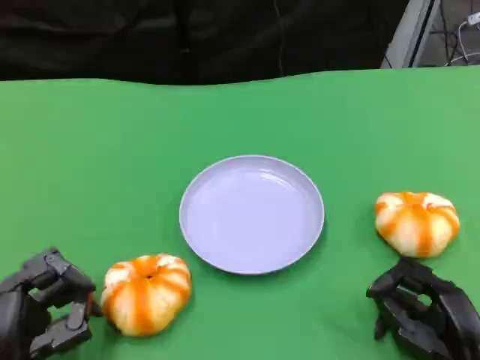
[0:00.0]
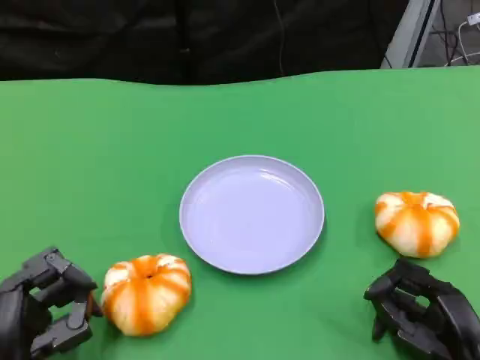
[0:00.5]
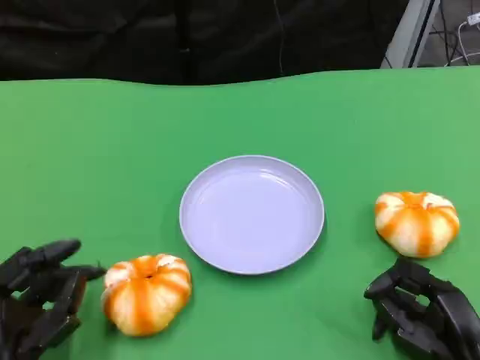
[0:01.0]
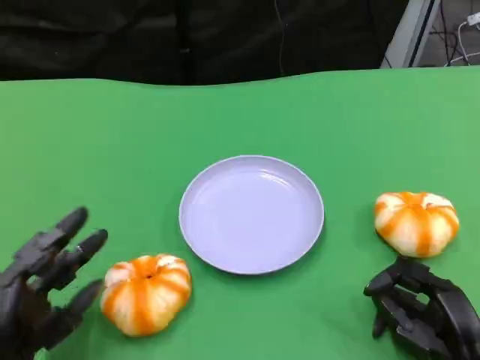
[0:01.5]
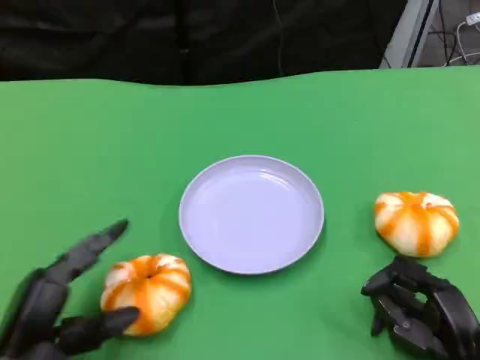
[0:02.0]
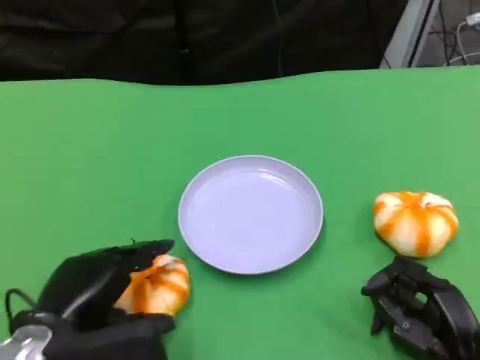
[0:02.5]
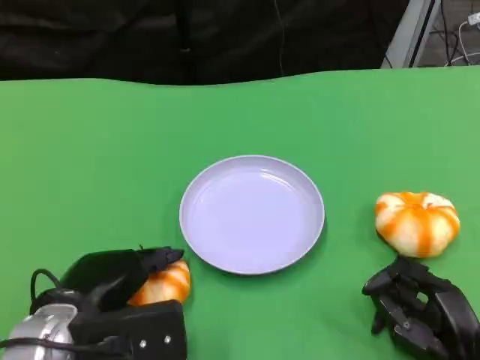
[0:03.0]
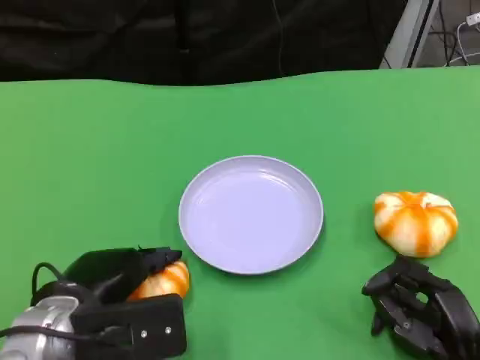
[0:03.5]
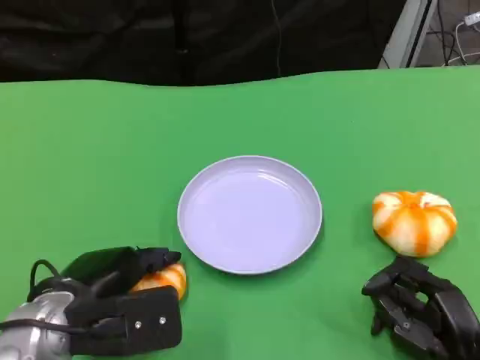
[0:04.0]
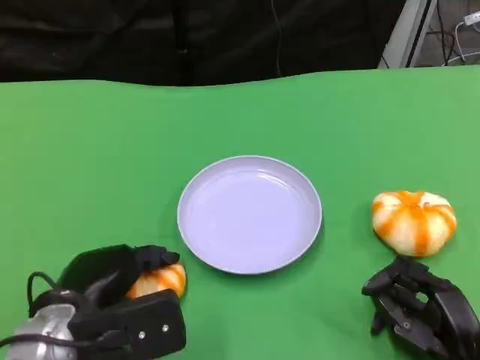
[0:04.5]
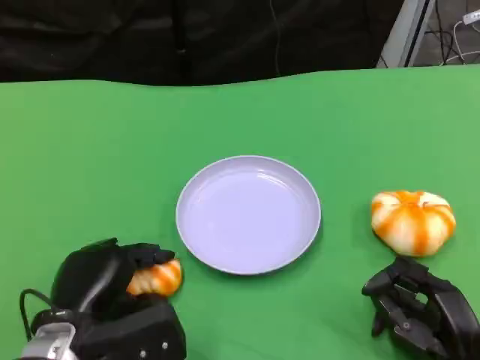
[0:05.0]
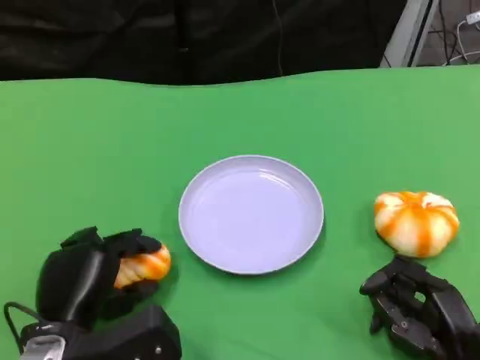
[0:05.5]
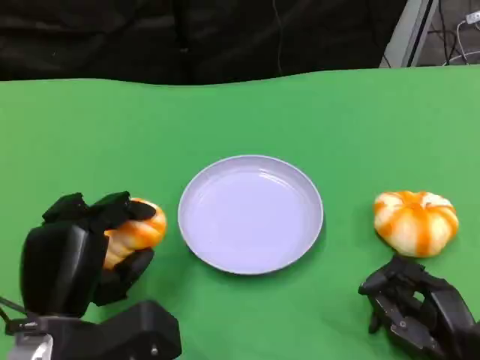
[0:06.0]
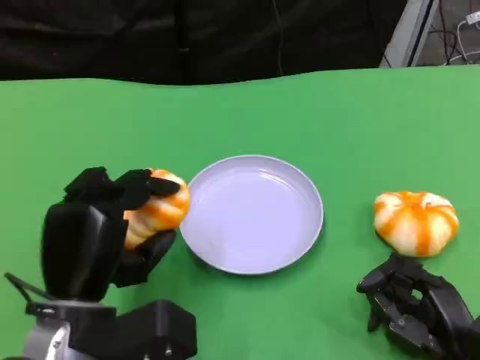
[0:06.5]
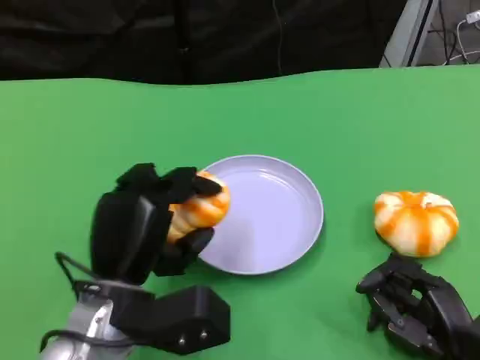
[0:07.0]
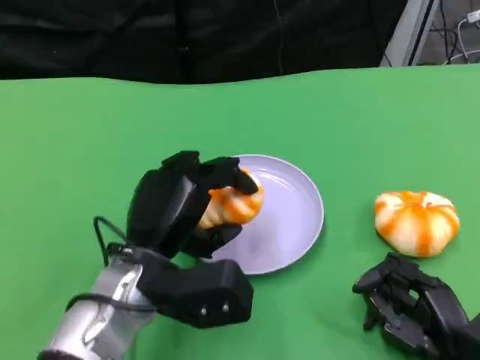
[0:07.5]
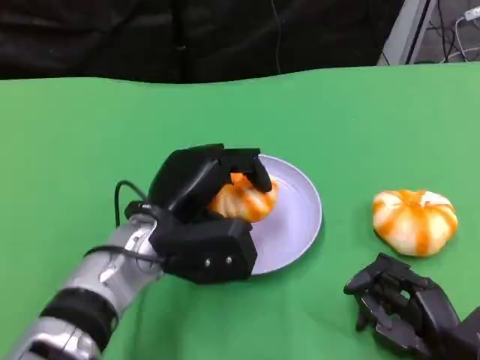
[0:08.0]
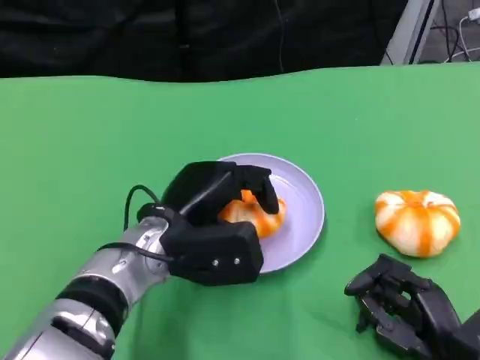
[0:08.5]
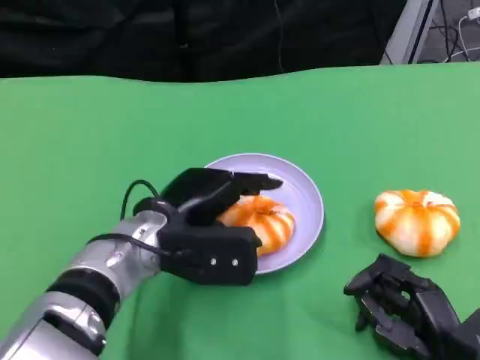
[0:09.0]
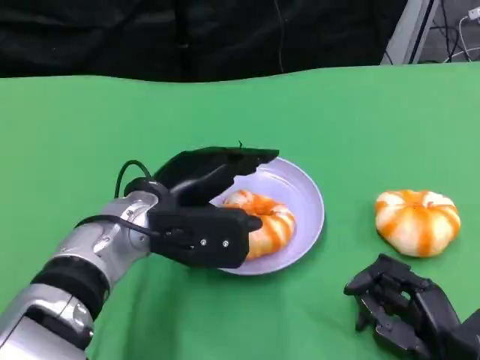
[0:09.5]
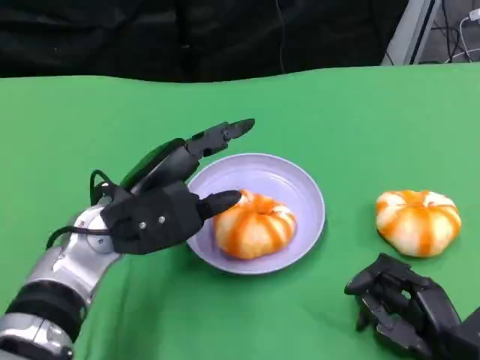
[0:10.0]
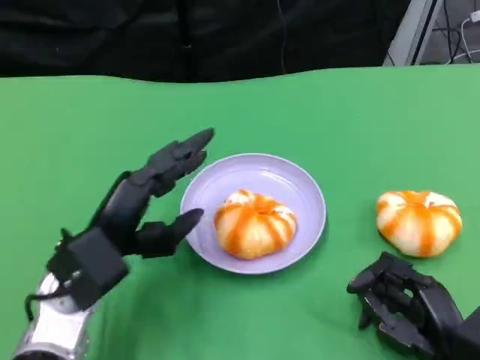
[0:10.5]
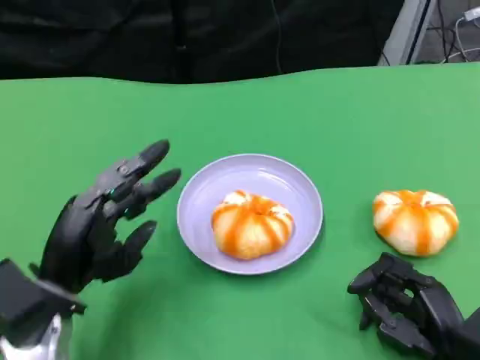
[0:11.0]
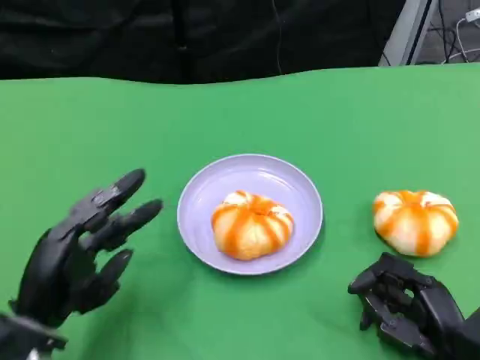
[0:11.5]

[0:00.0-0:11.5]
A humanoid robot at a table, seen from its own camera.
Task of the whole recording: Grasp the bread from the table and place it into the plate.
0:02.0 to 0:04.0: The left hand ends up some 5 cm from where it was.
0:06.0 to 0:07.5: The left hand travels to the right and forward by about 10 cm.
0:07.5 to 0:09.5: The left hand heads forward, covering roughly 5 cm.
0:09.5 to 0:11.5: The left hand is displaced to the left, backward and downward by some 15 cm.

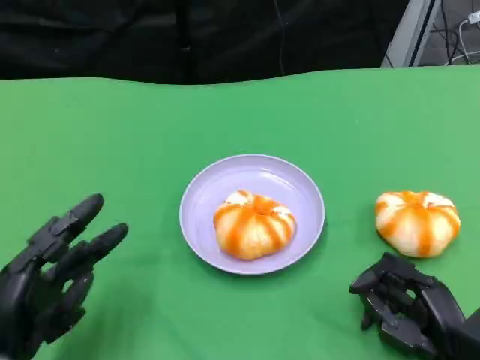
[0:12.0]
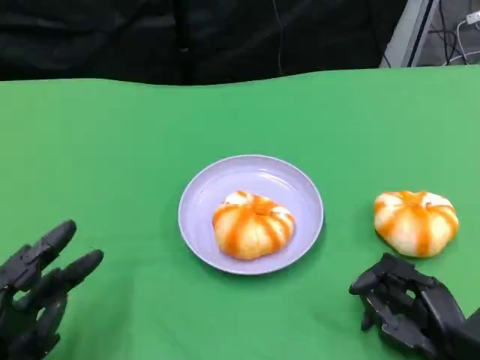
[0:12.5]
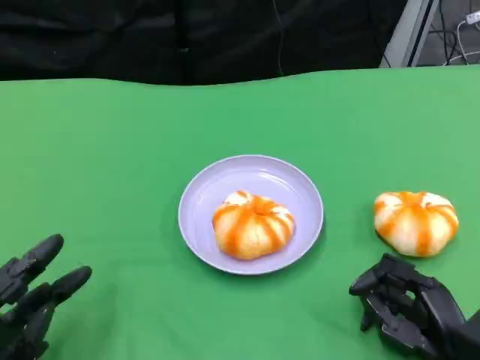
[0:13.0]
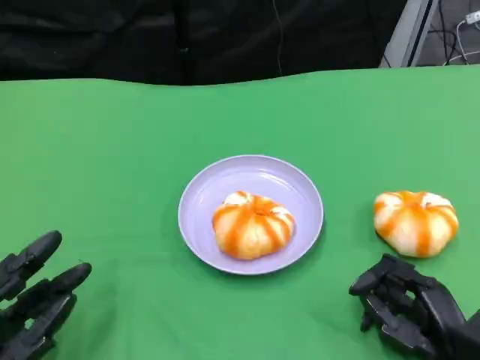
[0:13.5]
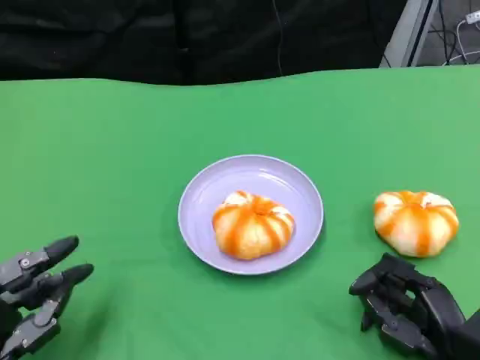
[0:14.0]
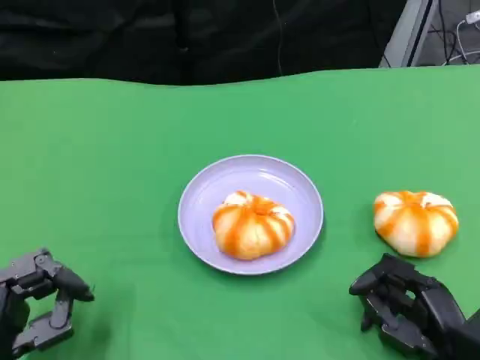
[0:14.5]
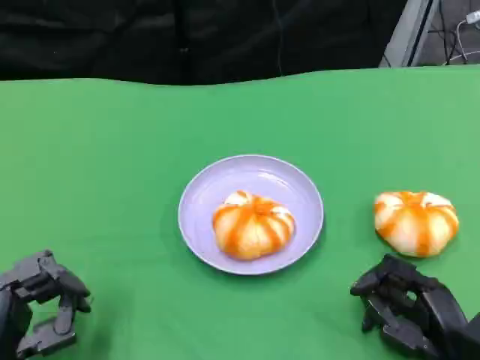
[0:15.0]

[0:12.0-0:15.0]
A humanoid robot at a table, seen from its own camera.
Task of the whole recording: Grasp the bread from the table and place it into the plate.
0:12.0 to 0:15.0: The hands stay close to where they were, moving slightly.

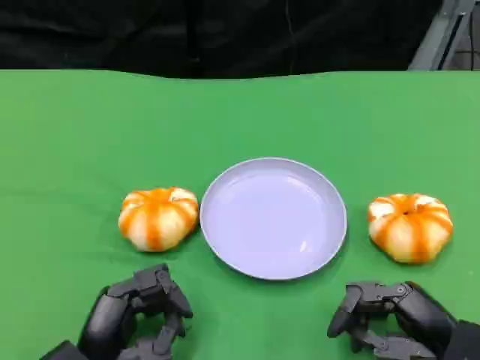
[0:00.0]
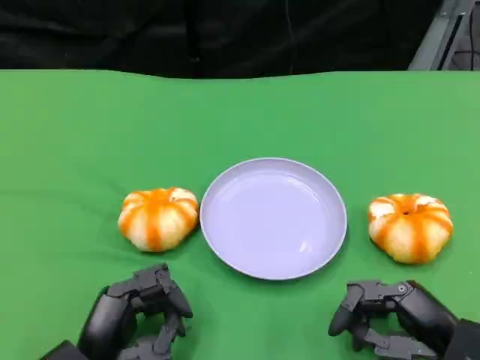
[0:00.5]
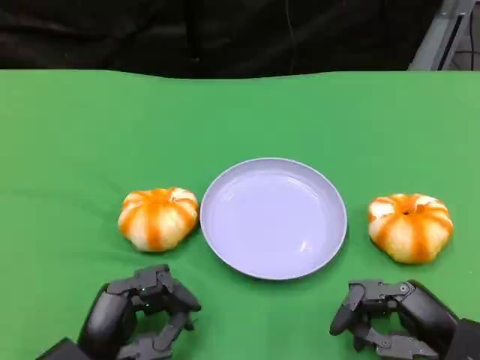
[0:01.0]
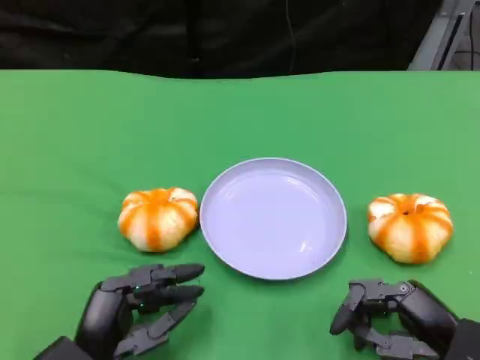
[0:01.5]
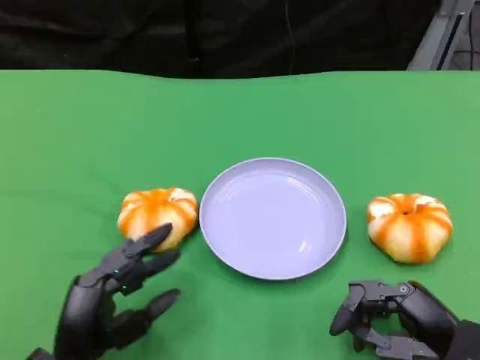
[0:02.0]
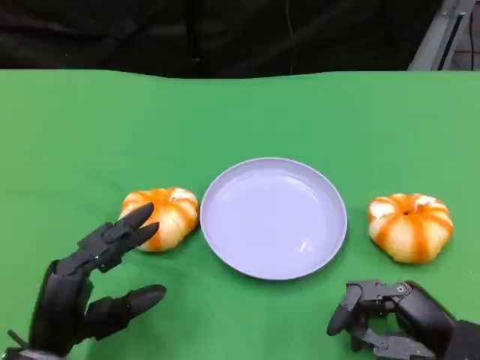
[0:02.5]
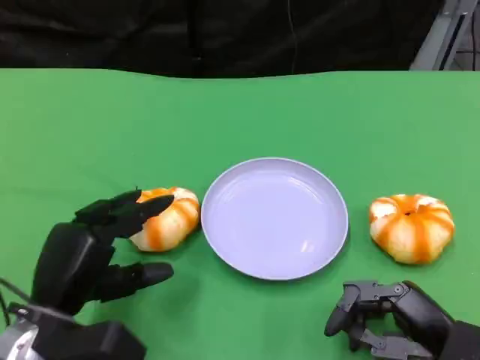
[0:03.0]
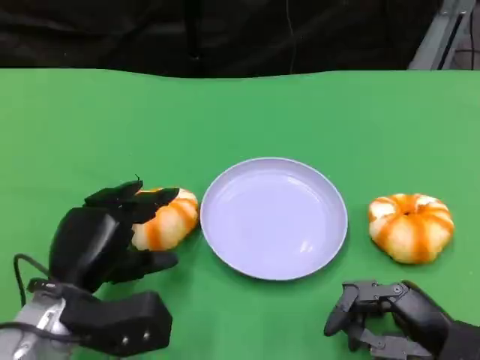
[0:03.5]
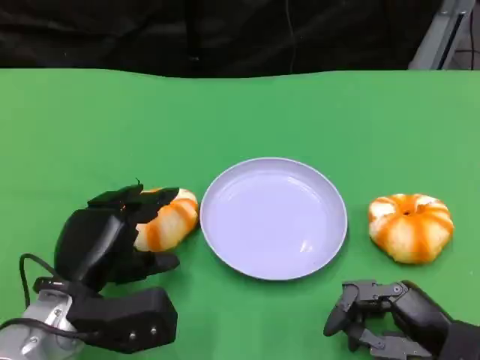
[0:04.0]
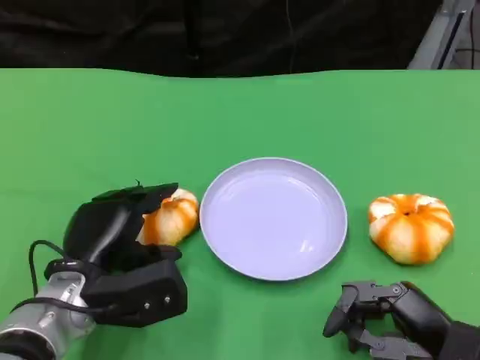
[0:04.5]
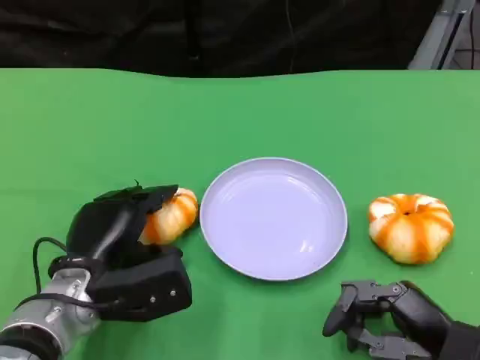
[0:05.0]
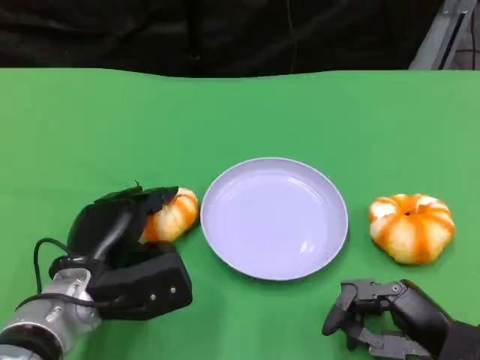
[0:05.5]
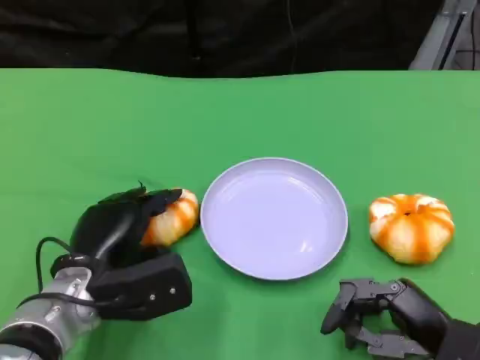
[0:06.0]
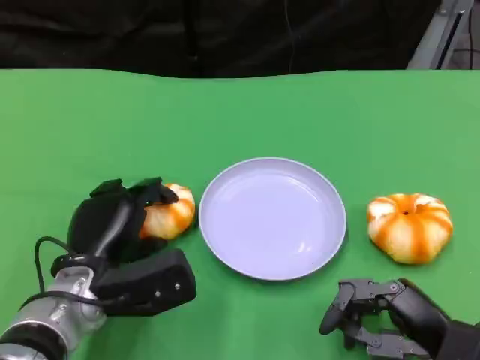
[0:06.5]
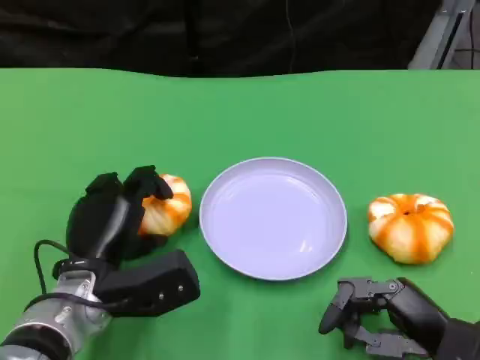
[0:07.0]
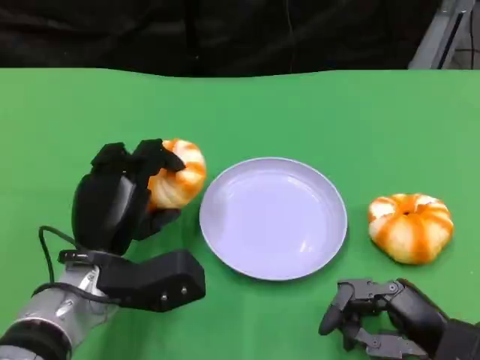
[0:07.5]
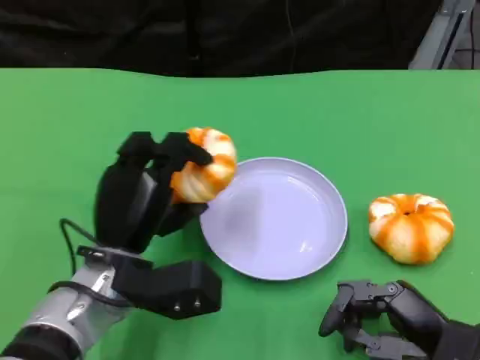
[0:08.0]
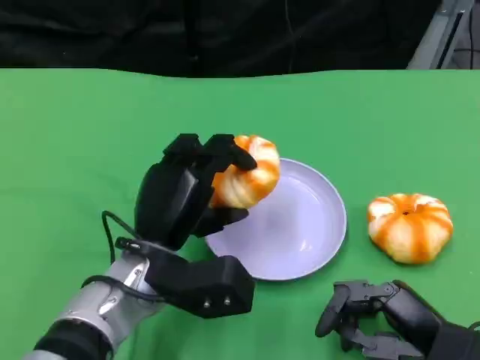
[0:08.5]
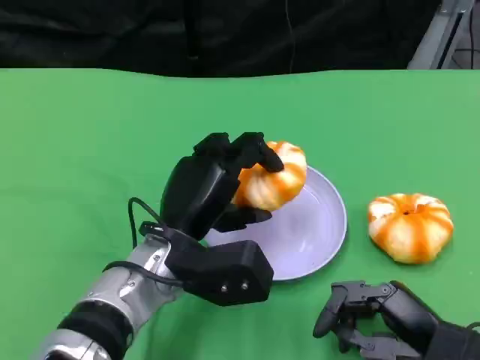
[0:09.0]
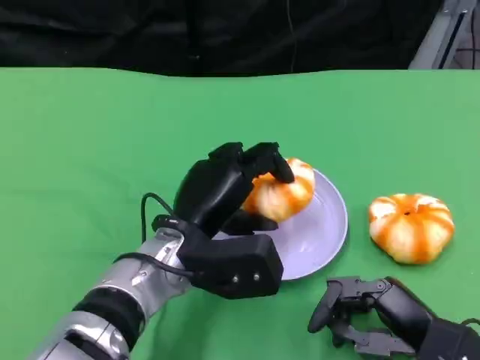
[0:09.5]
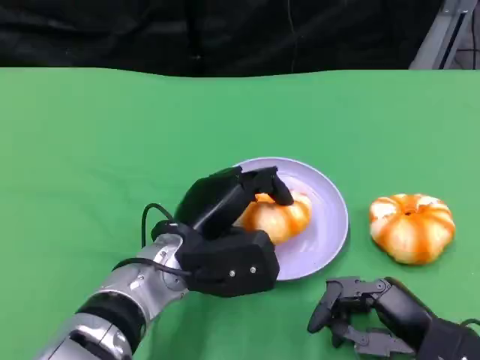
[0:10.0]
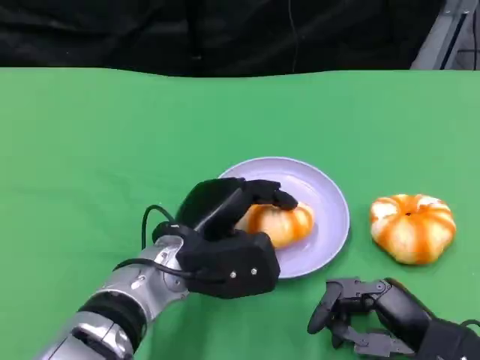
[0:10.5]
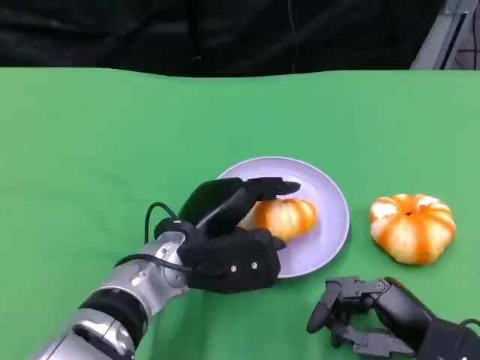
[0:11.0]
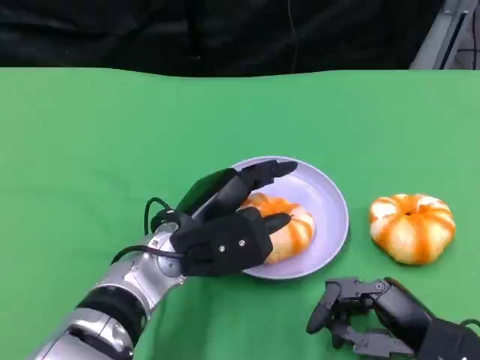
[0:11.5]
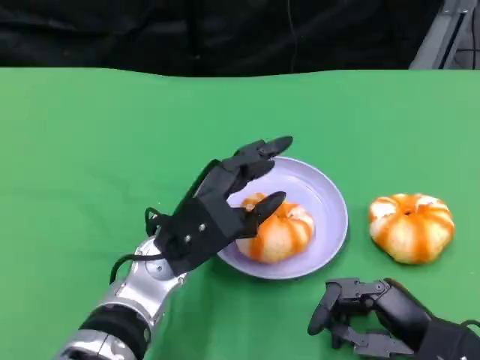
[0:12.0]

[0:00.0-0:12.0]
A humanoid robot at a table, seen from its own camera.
Task of the whole recording: Grasp the bread from the table and place it into the plate.
0:00.0 to 0:02.0: The hands move only a little.
0:02.0 to 0:04.0: The left hand goes roughly 5 cm forward.
0:04.0 to 0:06.0: The hands make only small movements.
0:08.0 to 0:10.0: The left hand travels to the right by about 5 cm.
